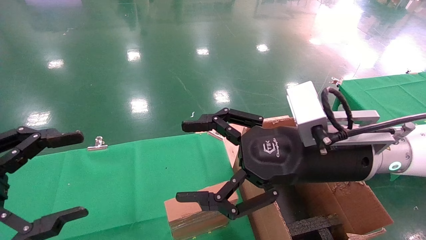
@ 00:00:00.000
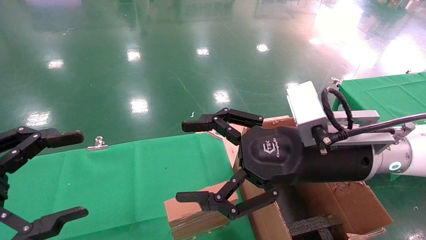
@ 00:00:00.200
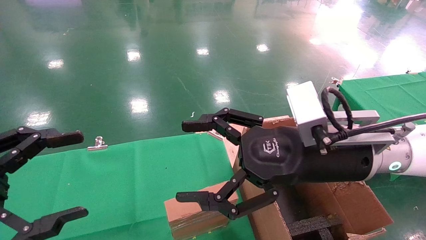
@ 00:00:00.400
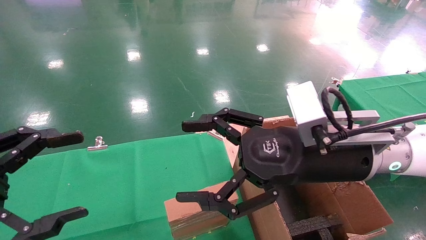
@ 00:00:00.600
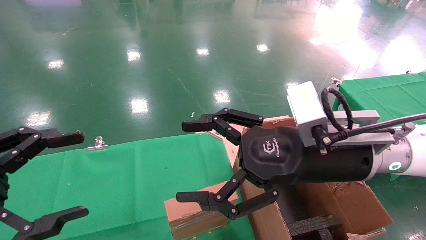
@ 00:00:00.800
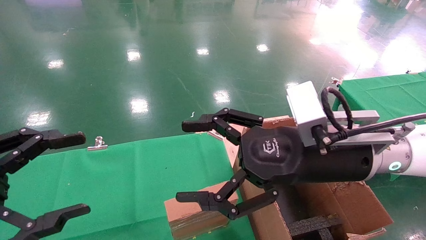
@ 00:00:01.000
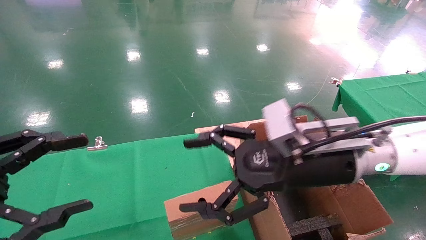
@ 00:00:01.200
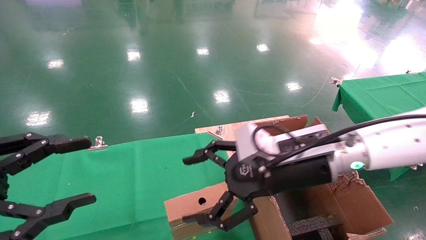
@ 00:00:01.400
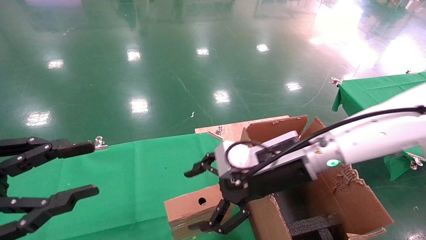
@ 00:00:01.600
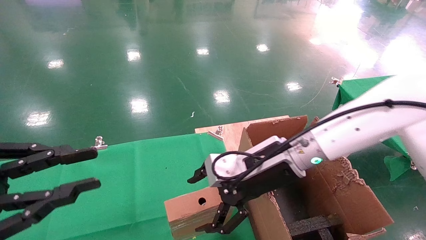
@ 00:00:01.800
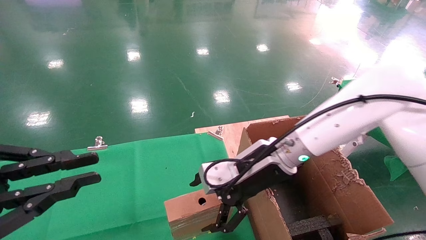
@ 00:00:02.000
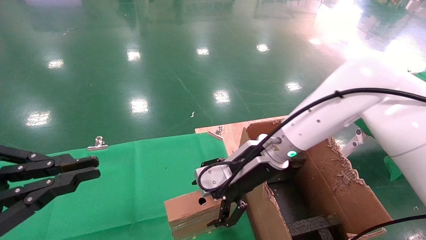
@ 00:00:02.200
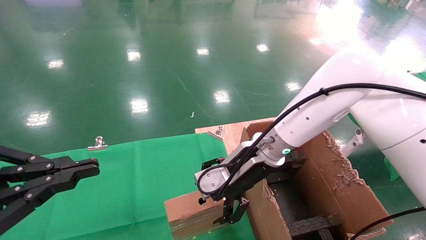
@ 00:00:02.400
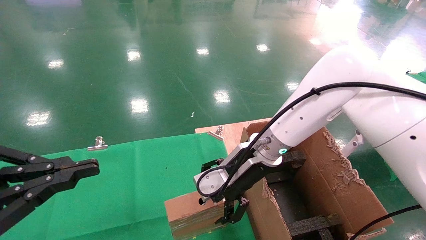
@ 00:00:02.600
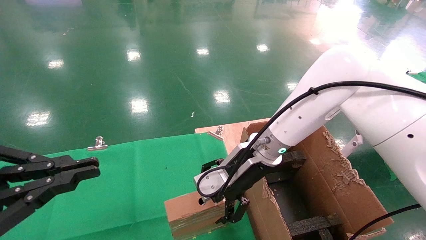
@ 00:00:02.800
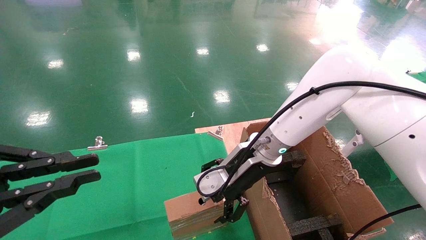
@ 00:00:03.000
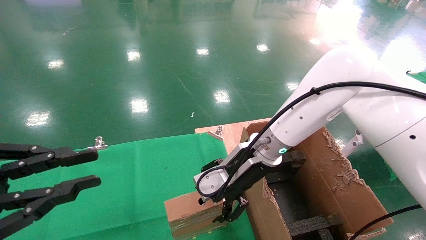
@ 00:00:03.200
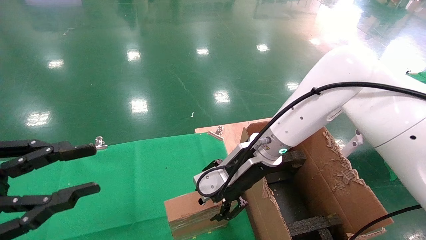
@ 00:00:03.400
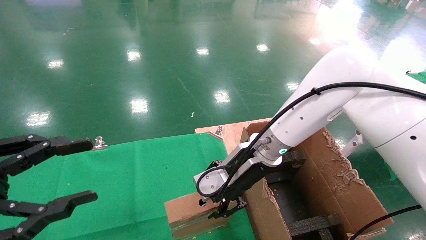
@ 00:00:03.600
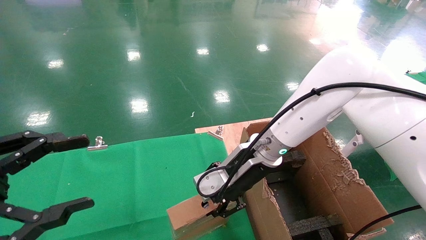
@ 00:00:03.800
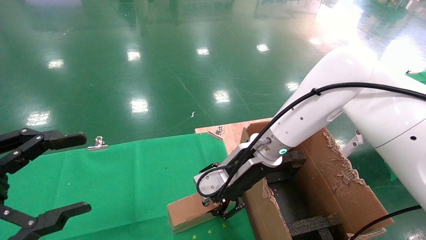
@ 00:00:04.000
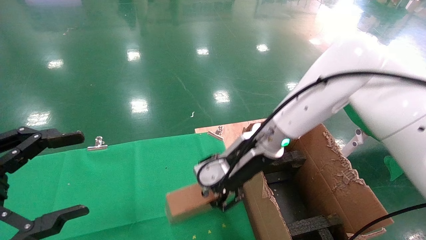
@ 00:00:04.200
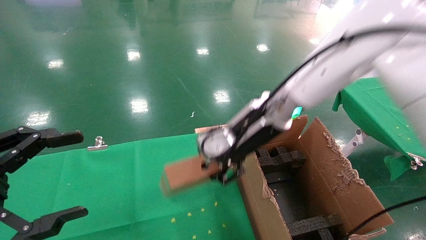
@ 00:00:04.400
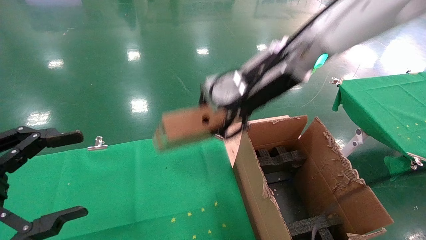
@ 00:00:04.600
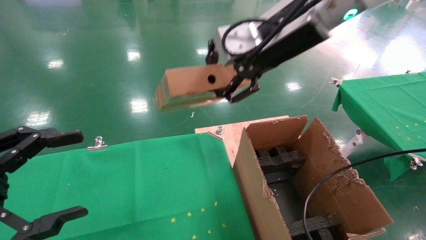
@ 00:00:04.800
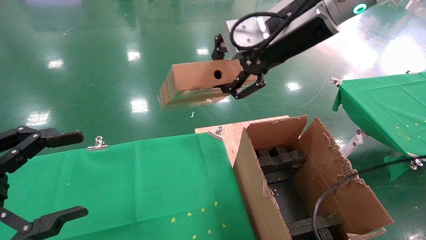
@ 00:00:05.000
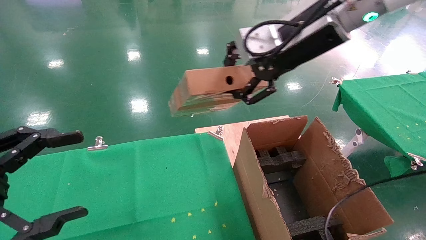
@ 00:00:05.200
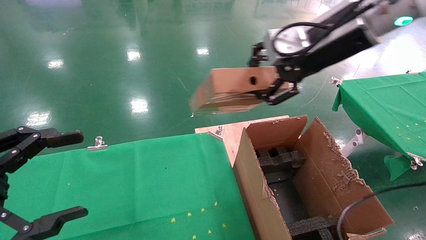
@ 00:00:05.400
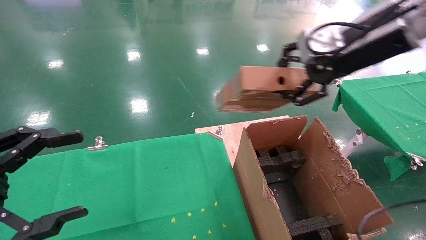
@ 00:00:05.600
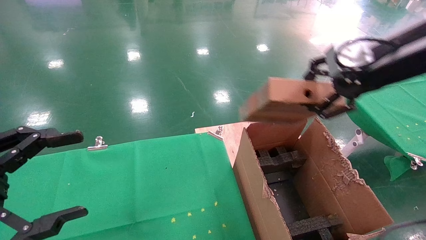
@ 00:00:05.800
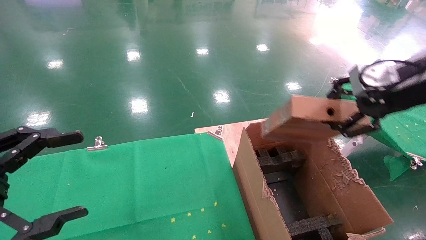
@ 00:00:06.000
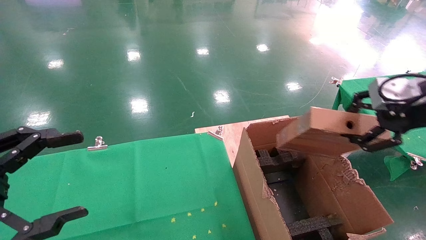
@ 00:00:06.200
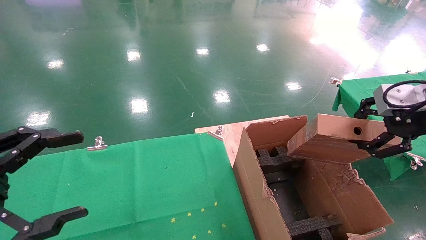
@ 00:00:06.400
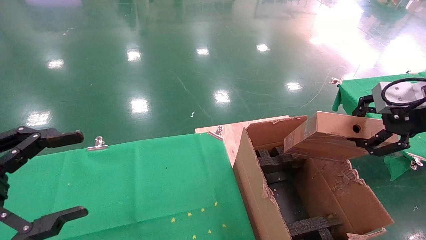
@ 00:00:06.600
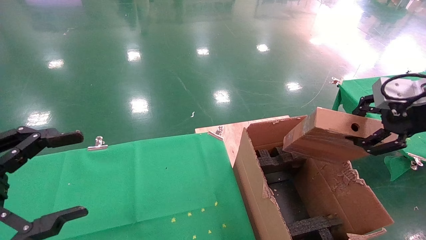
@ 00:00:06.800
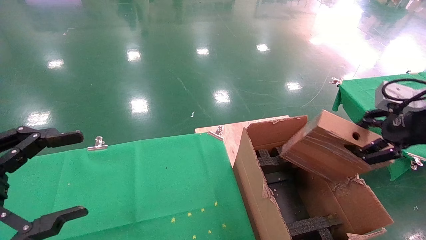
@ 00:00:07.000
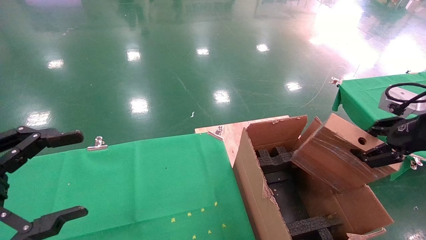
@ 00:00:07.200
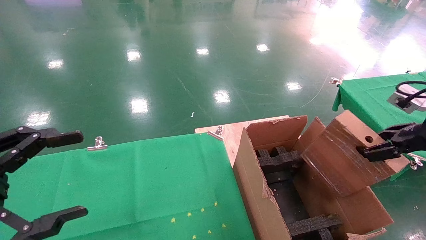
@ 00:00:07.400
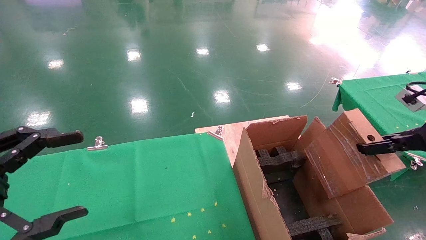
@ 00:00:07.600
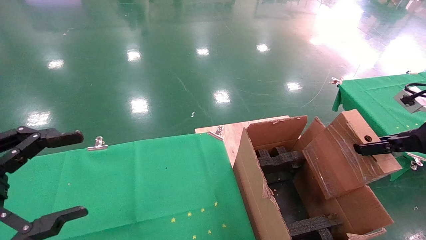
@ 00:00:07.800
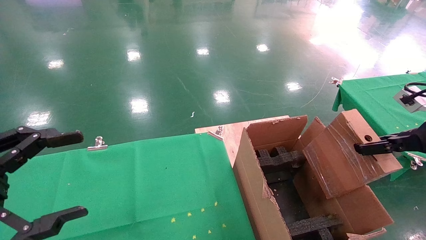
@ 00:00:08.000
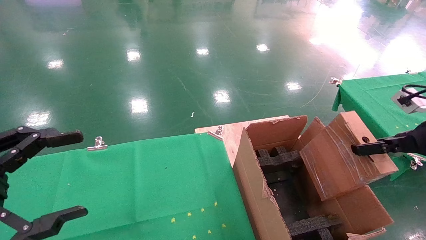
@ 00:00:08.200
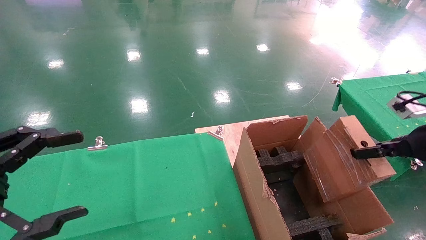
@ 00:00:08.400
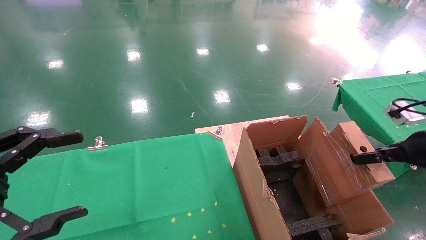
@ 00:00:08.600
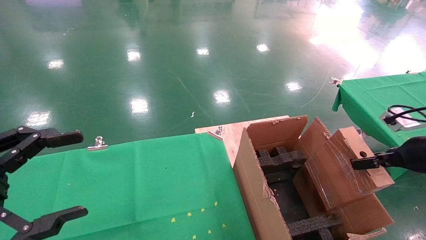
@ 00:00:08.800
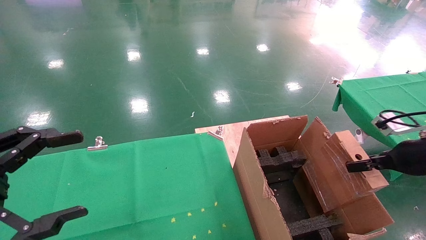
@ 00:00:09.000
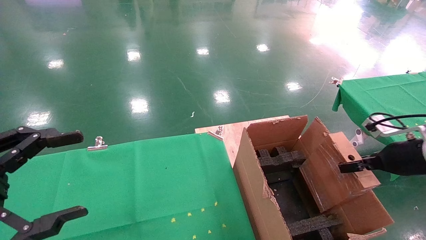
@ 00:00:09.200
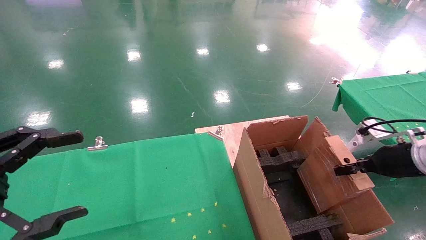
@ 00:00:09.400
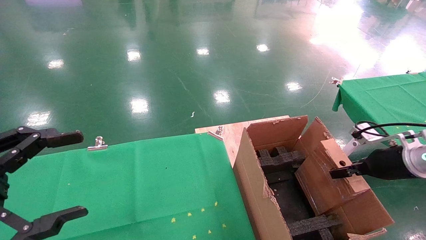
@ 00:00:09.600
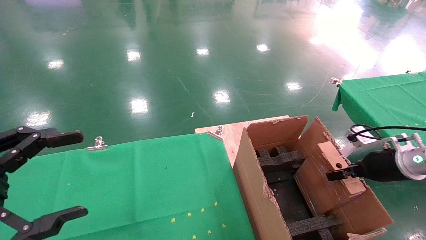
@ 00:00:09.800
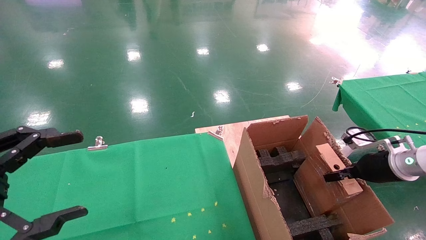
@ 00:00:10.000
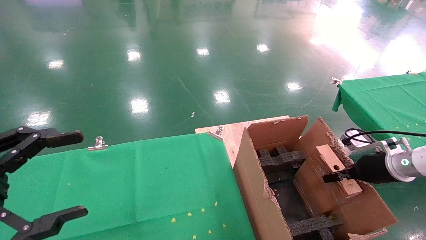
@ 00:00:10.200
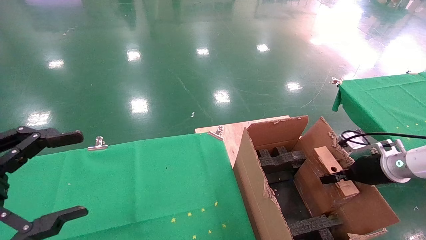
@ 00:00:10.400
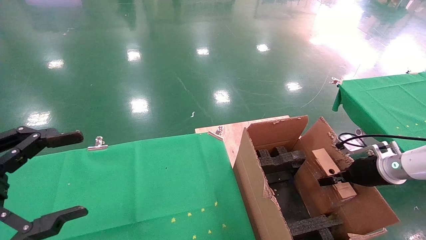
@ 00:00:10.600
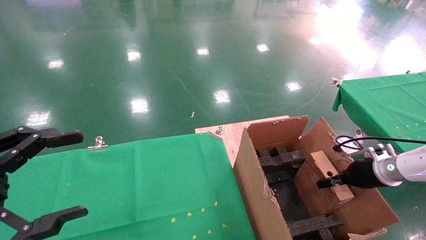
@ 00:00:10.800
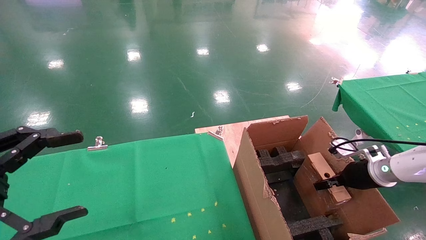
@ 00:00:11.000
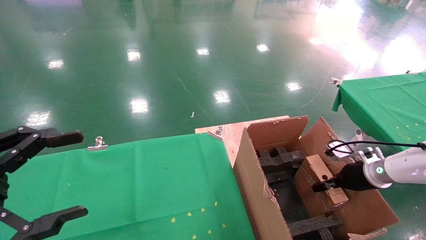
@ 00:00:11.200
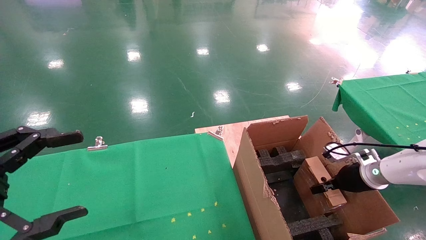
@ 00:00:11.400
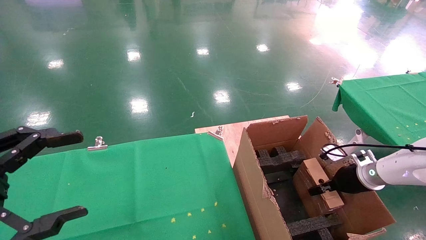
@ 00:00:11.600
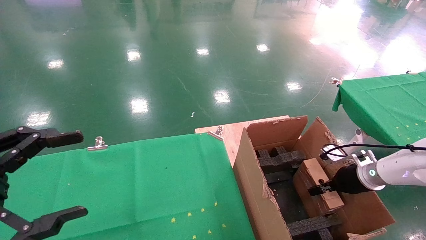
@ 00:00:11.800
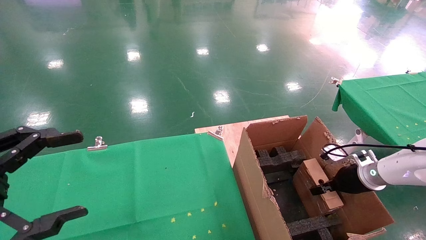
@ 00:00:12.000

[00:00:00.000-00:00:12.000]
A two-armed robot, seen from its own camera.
Task of the whole recording: using a robotic arm to pick up a cardboard box and palace it the carton.
Step, 00:00:01.400 to 00:00:03.800: Pick up the mouse and the power cord paper box.
00:00:00.000 to 00:00:01.600: The left gripper closes up; the right gripper heads forward, covering approximately 5 cm.
00:00:01.600 to 00:00:03.000: The right gripper is displaced forward by approximately 5 cm. The left gripper closes.
00:00:03.000 to 00:00:04.400: The left gripper opens its fingers. The right gripper moves upward, some 10 cm, and closes its fingers.
00:00:04.400 to 00:00:06.000: The right gripper shifts approximately 25 cm to the right and backward.
00:00:06.000 to 00:00:07.600: The right gripper is displaced downward and to the right by approximately 15 cm.
00:00:07.600 to 00:00:09.000: The right gripper moves downward, some 5 cm.
00:00:09.000 to 00:00:10.400: The right gripper goes some 10 cm downward and forward.
00:00:10.400 to 00:00:12.000: The right gripper ends up roughly 5 cm from where it was.

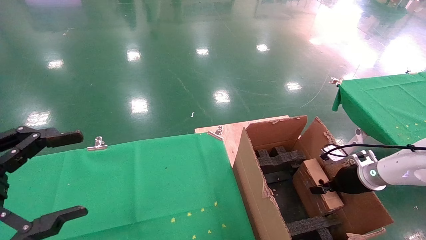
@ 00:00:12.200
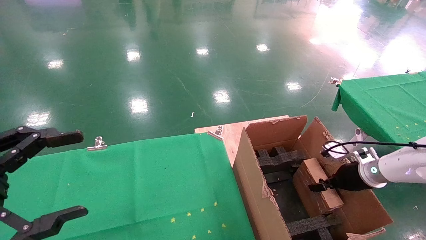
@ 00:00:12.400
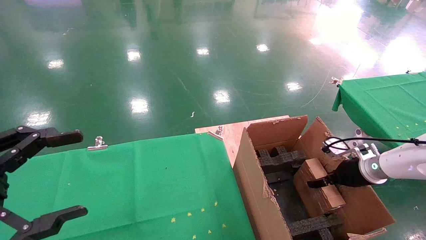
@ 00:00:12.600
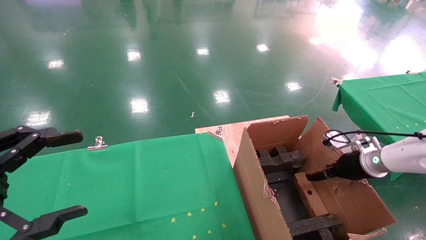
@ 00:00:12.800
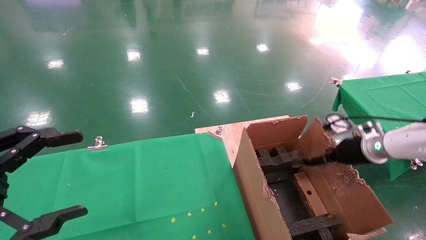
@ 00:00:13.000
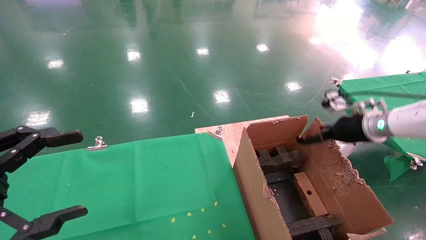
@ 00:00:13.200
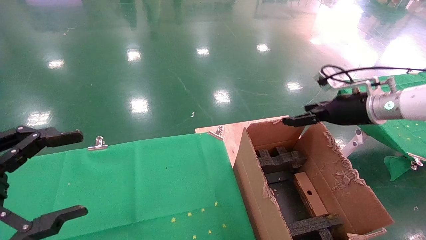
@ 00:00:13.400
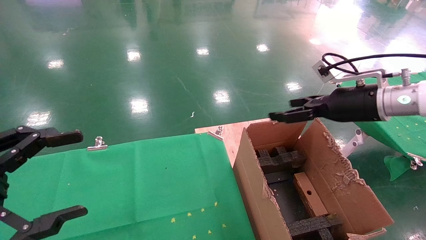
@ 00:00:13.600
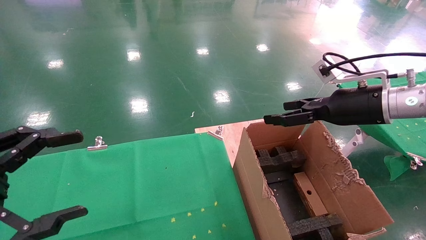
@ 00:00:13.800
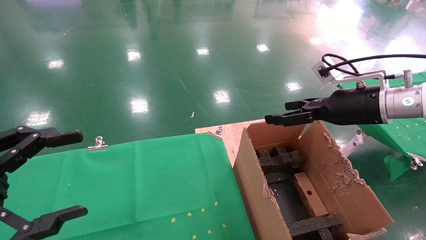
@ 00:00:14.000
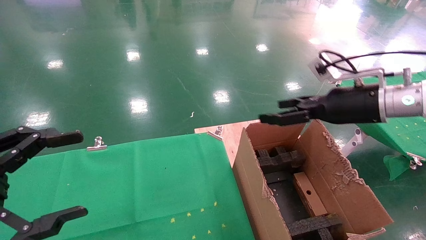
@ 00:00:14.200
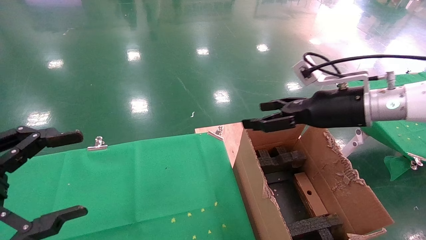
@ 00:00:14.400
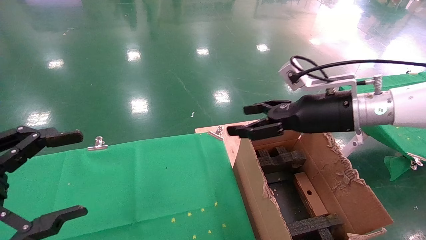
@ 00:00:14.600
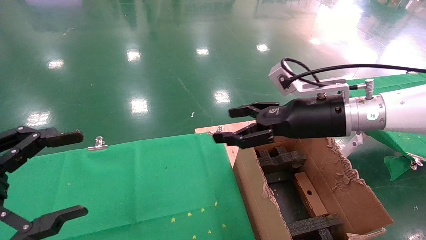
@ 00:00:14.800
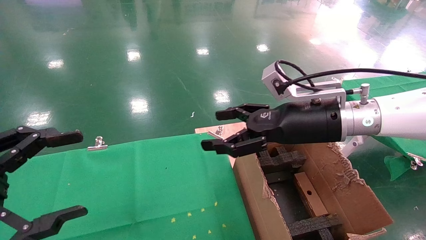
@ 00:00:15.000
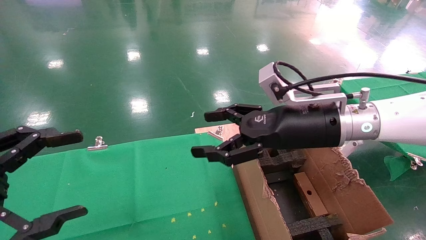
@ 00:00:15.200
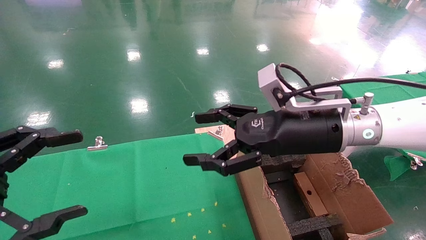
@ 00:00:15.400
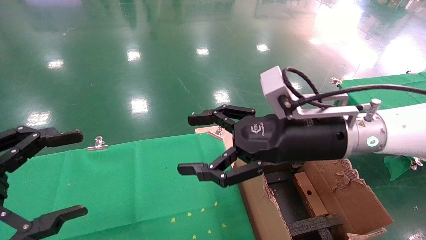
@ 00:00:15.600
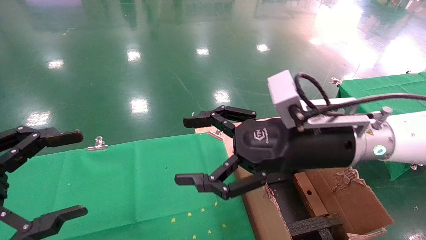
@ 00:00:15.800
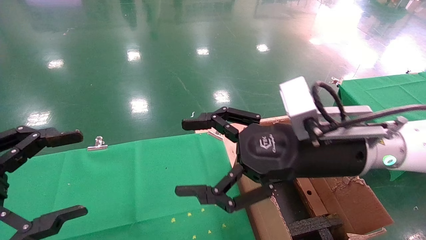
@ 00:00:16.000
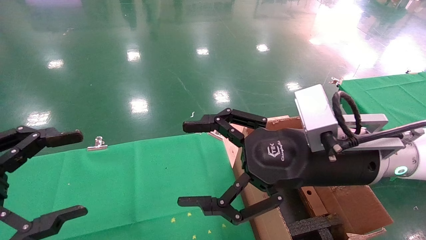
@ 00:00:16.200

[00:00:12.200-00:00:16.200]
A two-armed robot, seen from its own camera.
Task of the whole recording: using a robotic arm to pick up a cardboard box and palace it the carton.
00:00:12.200 to 00:00:13.600: The right gripper is displaced upward by about 20 cm, and opens its fingers.
00:00:13.600 to 00:00:14.800: The right gripper is displaced to the left by about 10 cm.
00:00:14.800 to 00:00:16.200: The right gripper travels backward and to the left by some 10 cm.
